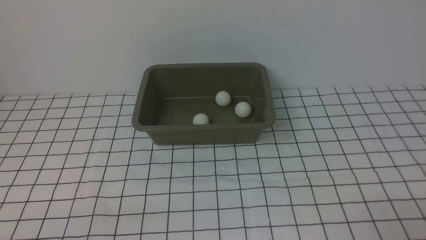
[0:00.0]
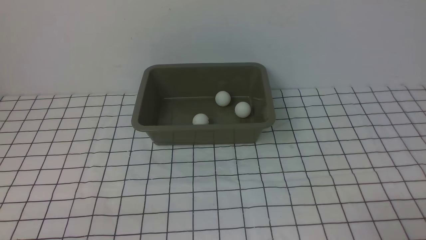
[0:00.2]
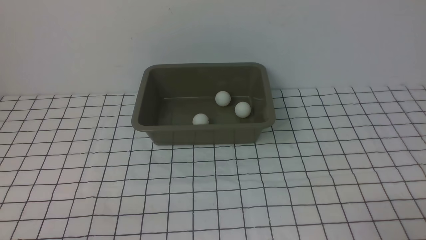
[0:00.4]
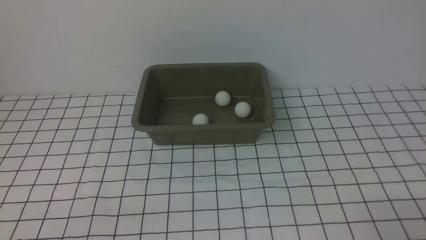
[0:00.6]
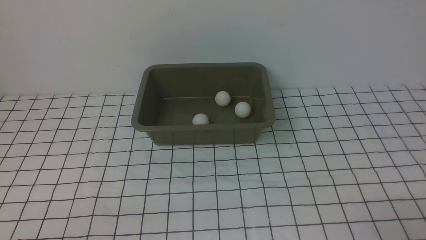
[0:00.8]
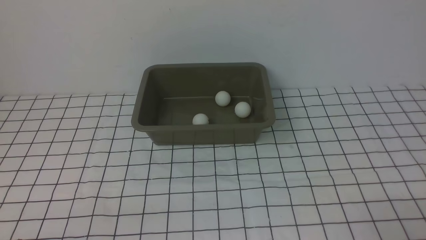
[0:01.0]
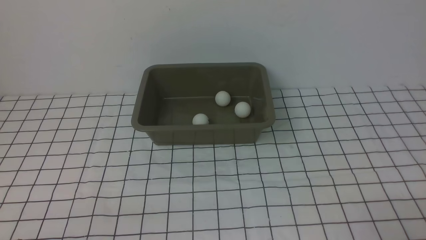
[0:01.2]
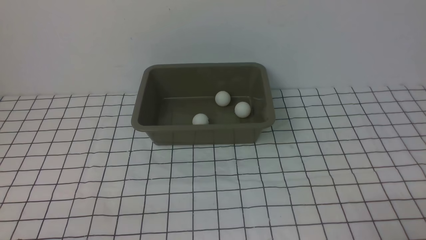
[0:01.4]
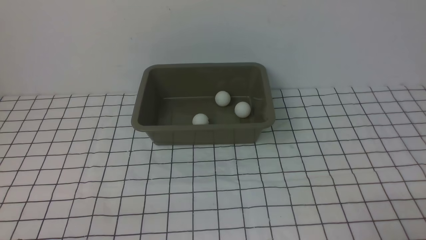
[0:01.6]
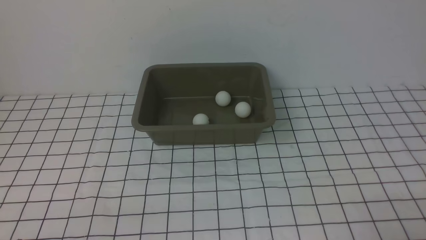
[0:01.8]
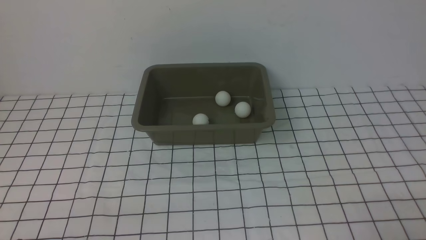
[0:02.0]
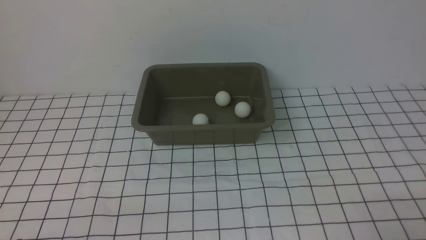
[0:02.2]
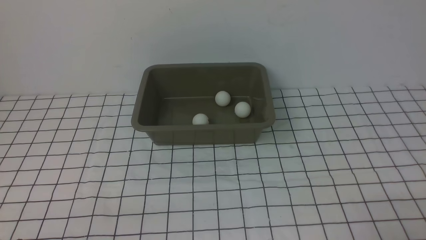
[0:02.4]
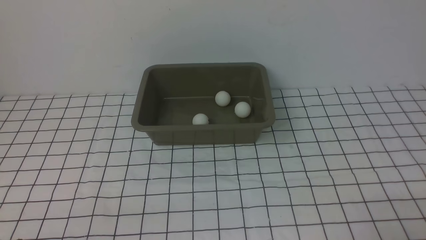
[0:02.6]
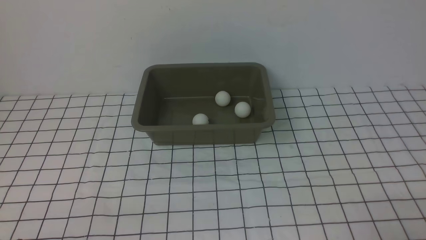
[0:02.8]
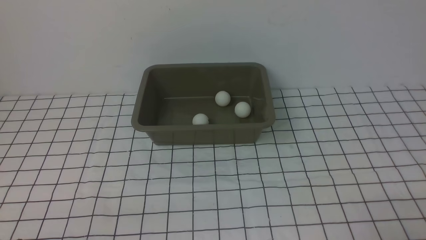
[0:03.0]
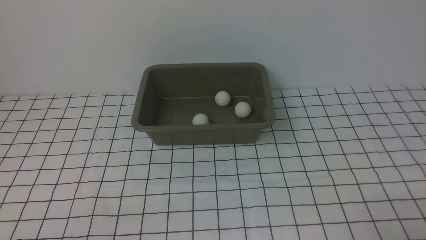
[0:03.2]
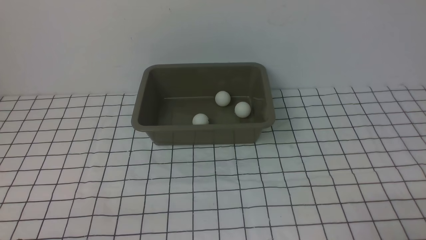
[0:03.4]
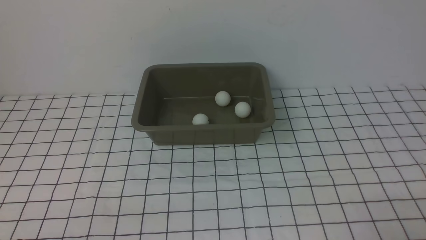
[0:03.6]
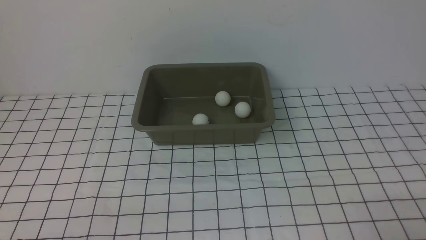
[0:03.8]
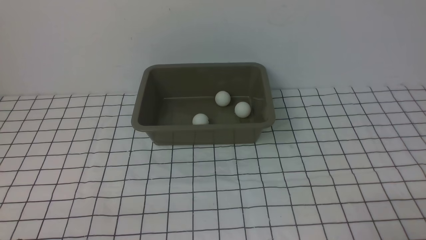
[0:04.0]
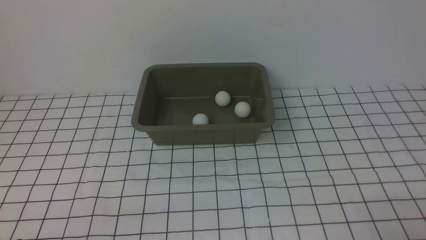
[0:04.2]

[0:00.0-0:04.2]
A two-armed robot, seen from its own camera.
0:01.4 to 0:04.2: The two grippers keep their place.
